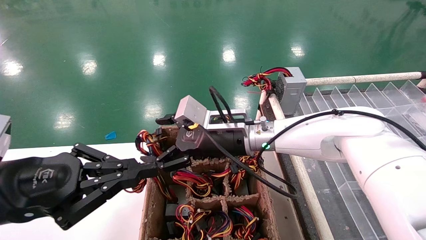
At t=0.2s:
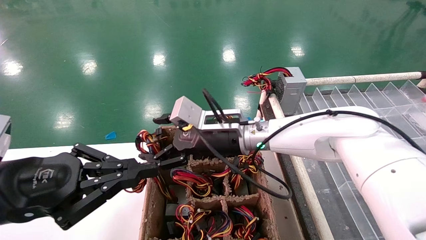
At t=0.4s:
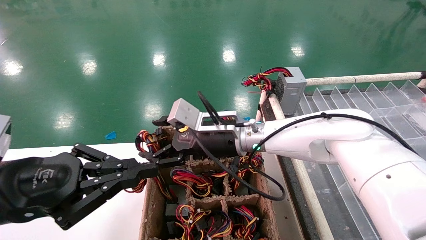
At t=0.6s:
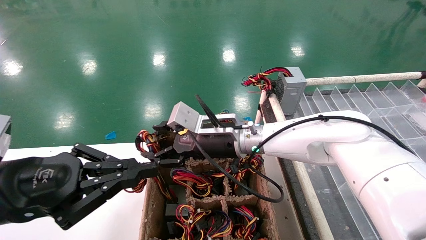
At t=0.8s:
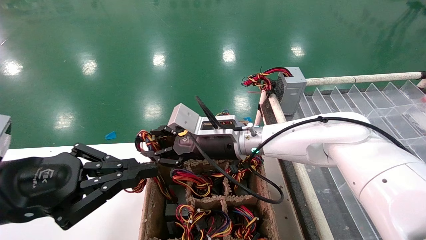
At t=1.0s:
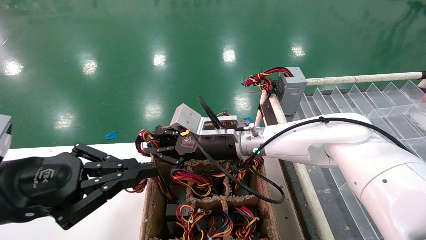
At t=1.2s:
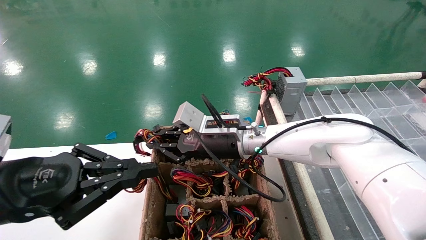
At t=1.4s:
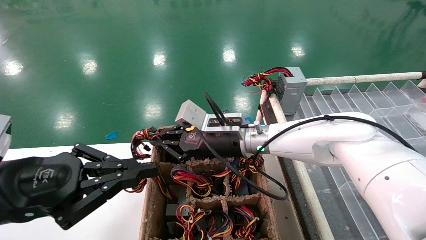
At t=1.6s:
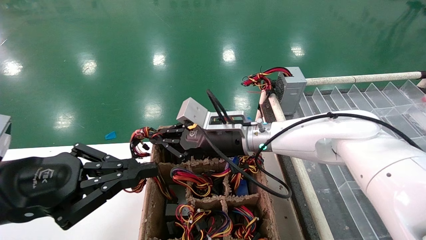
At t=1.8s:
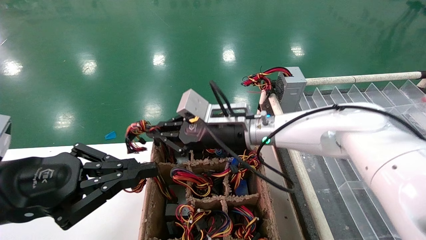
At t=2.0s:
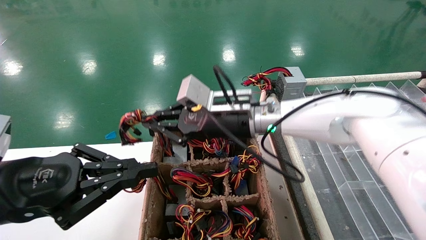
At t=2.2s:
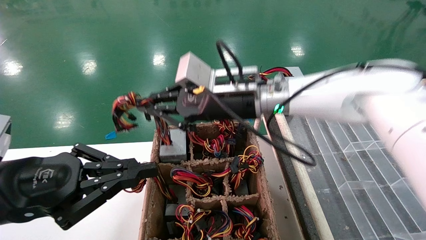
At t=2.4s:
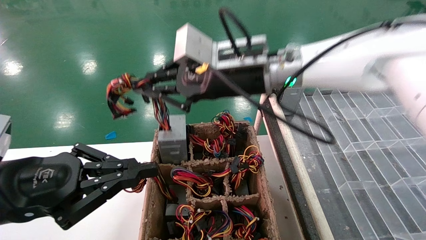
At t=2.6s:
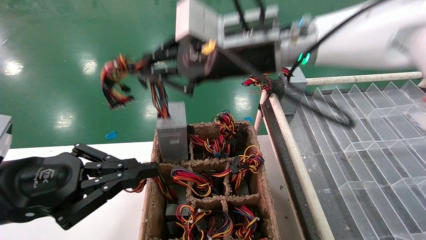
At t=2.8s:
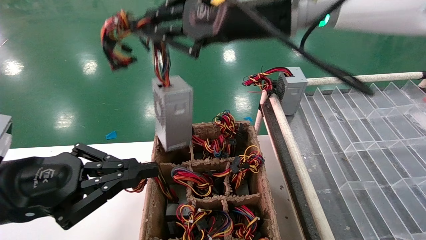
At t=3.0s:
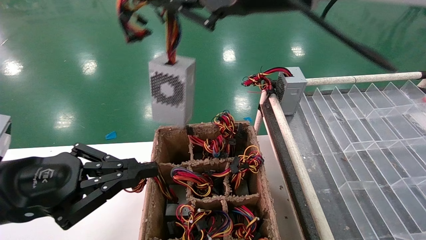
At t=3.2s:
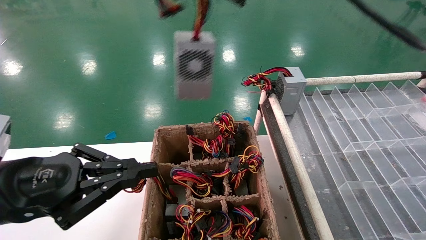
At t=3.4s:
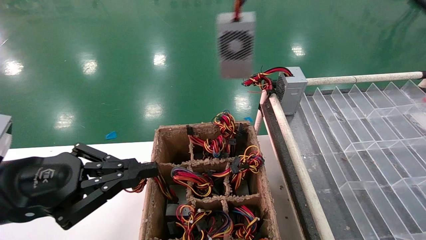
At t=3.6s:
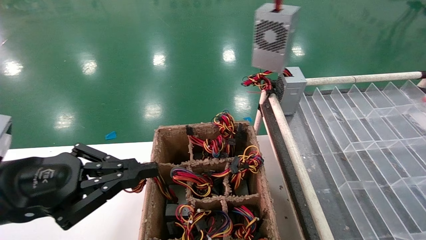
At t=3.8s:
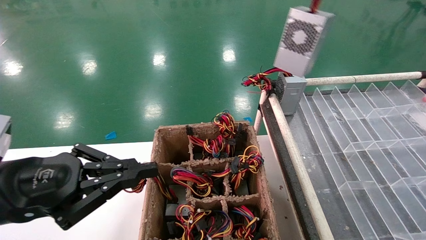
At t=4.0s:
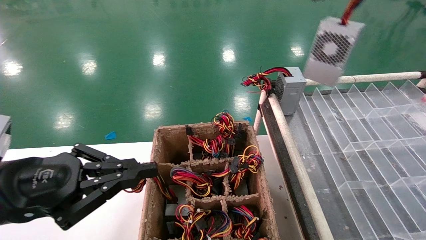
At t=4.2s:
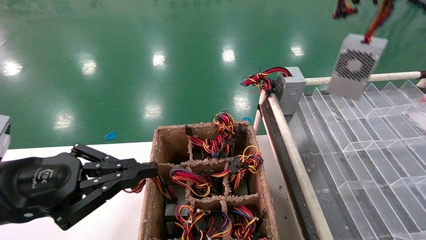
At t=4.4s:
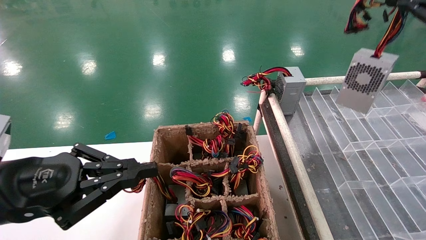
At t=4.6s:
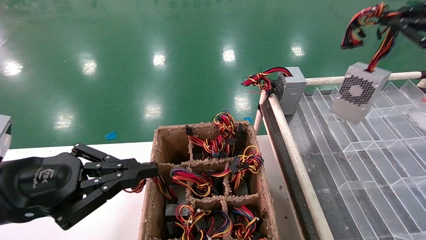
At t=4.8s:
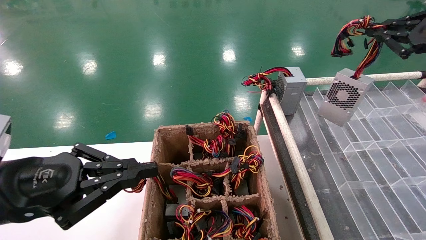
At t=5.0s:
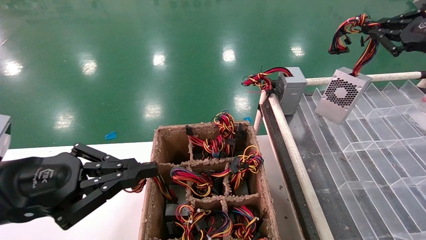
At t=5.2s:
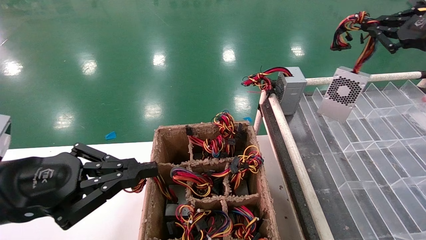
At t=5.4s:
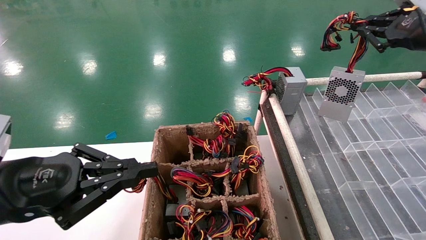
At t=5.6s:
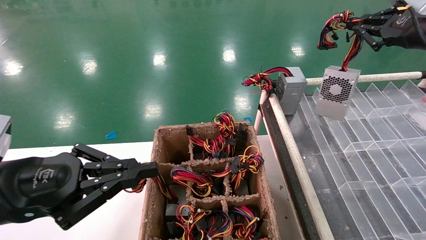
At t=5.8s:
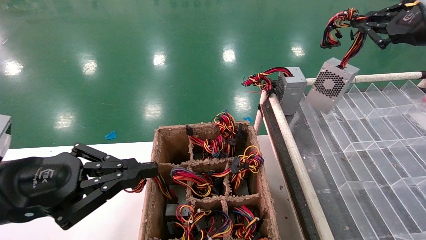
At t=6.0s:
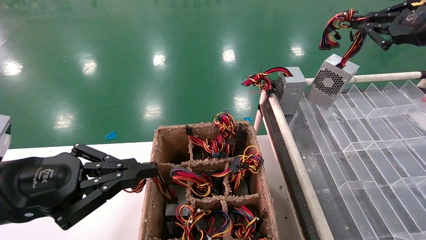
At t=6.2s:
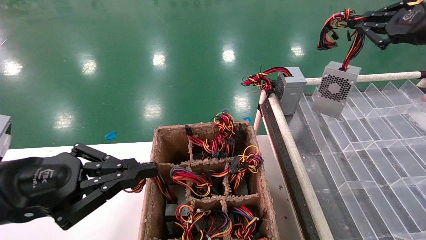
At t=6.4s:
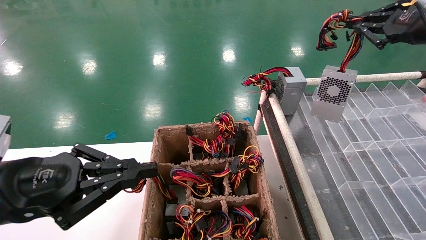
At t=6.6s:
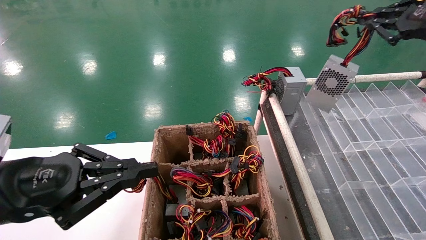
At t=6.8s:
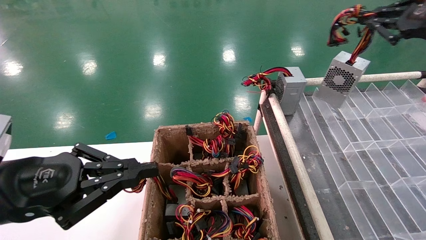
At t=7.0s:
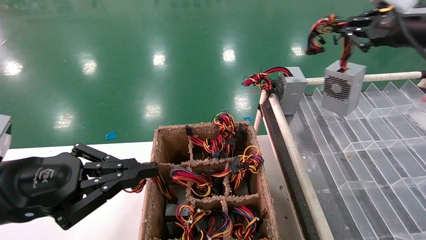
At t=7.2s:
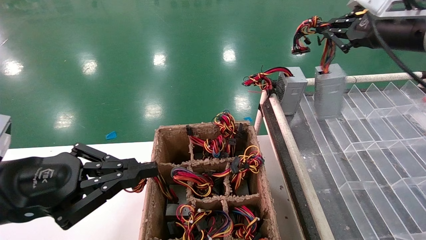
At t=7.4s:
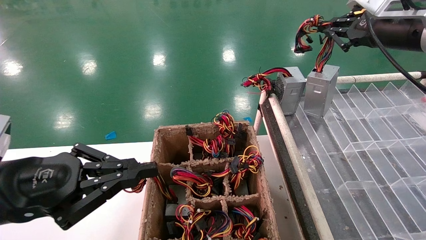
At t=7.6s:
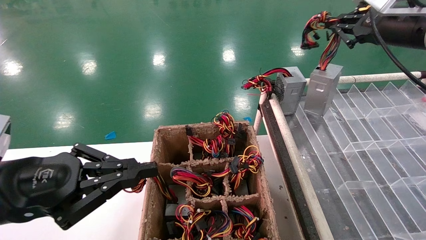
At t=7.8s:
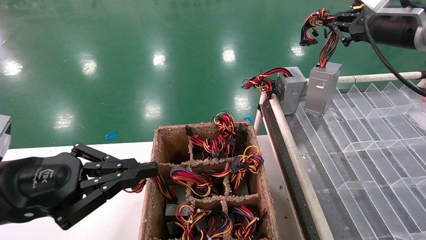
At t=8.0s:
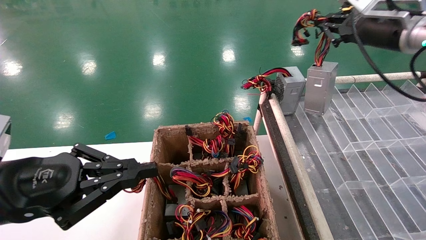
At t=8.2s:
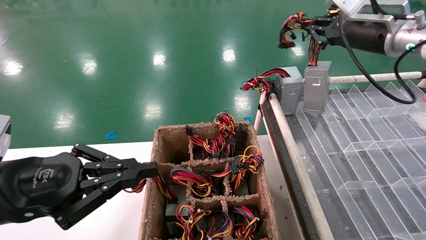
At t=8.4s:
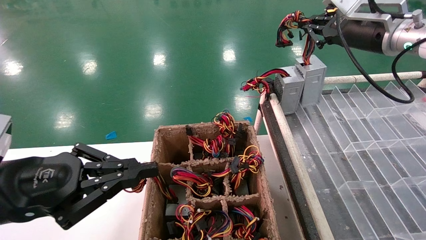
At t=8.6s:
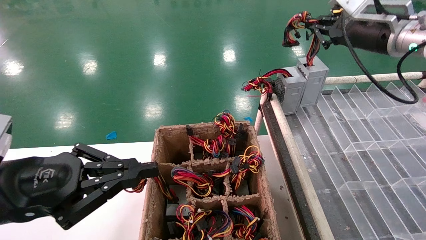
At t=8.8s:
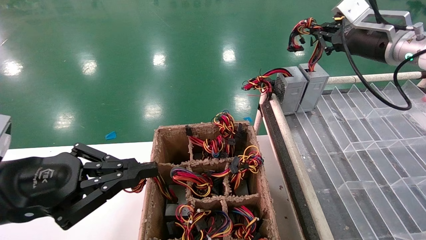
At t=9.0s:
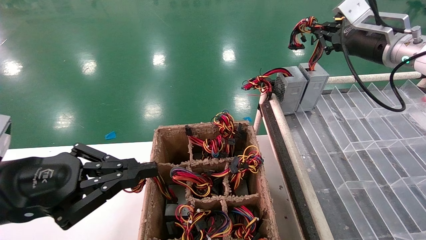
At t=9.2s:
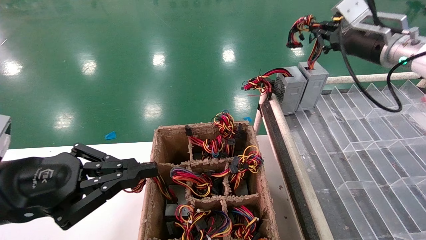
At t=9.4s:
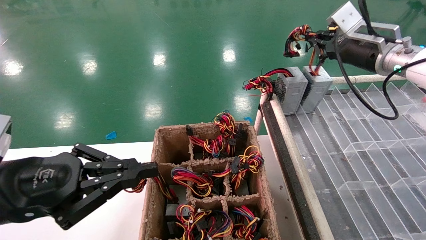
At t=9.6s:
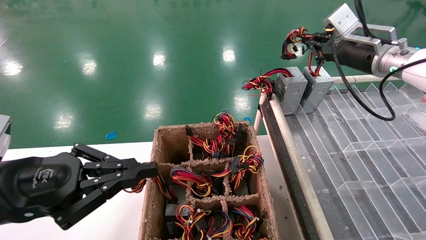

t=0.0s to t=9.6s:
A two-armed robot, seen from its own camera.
t=0.0s to t=1.6s: The right gripper closes up.
t=1.6s to t=3.2s: The right gripper travels upward by roughly 30 cm.
t=3.2s to t=4.8s: The right gripper is displaced to the right by about 30 cm.
t=4.8s to t=6.4s: There are only small adjustments of the grippers.
t=6.4s to t=8.0s: The right gripper goes some 10 cm to the left and forward.
t=8.0s to t=9.6s: The right gripper changes place by roughly 5 cm.

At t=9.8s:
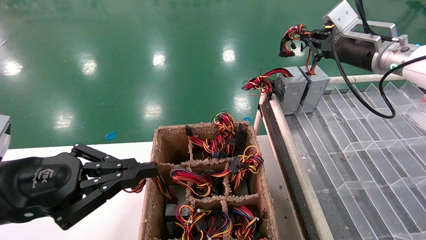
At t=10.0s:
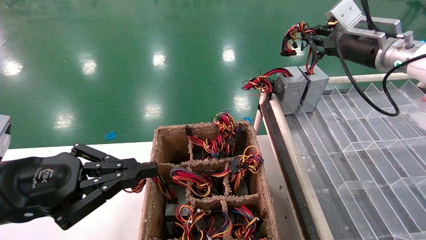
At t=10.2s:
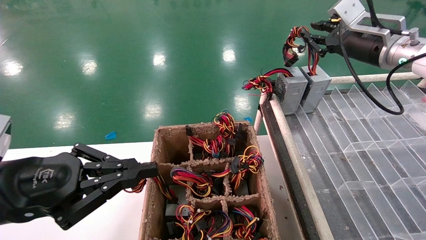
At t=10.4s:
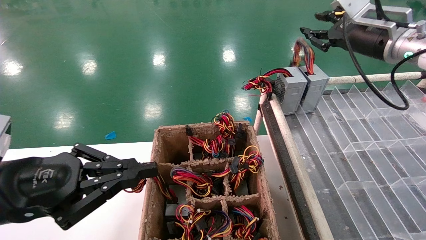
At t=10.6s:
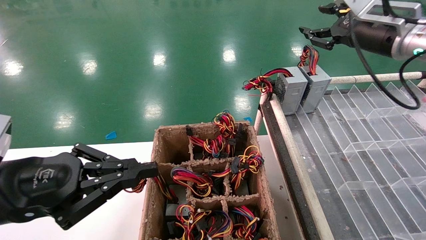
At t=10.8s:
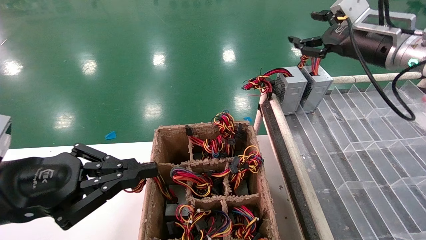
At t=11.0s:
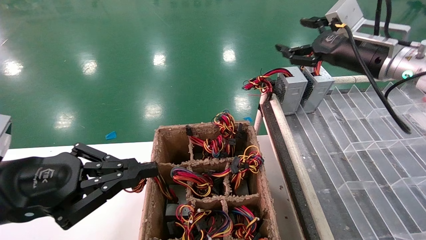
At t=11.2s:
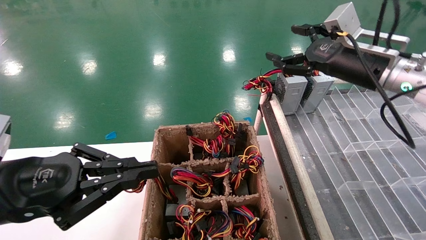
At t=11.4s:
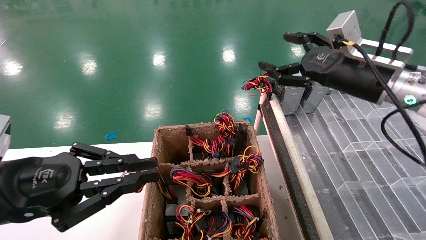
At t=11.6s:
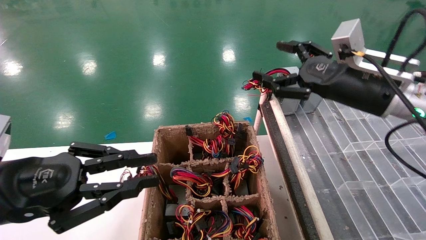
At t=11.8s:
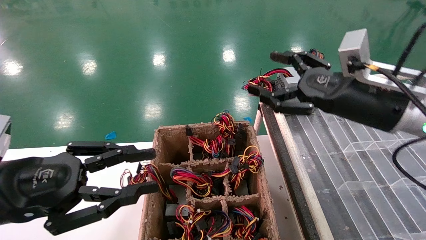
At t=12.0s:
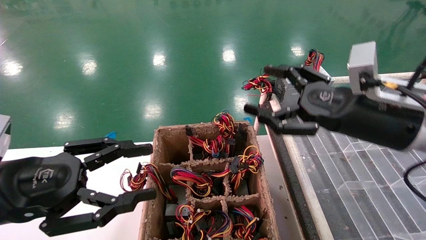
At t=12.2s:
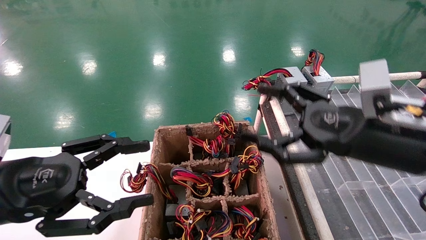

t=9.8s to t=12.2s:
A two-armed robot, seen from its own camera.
t=9.8s to t=11.0s: The right gripper opens its fingers.
t=11.0s to t=12.2s: The left gripper opens; the right gripper moves backward and downward, about 15 cm.
